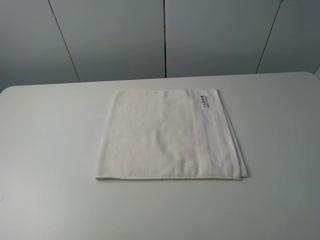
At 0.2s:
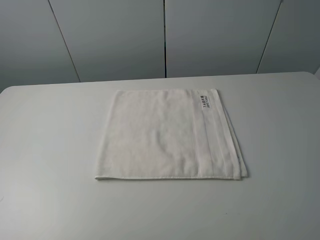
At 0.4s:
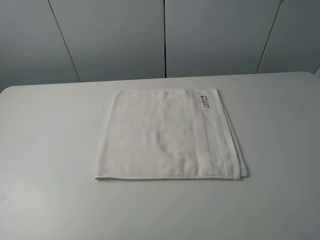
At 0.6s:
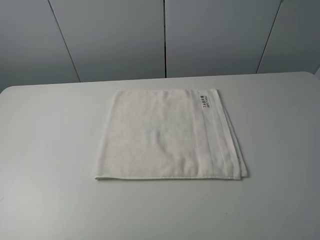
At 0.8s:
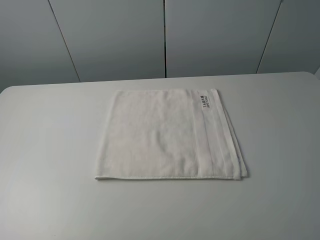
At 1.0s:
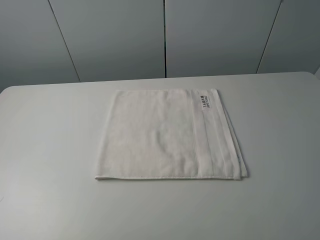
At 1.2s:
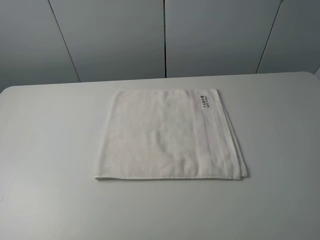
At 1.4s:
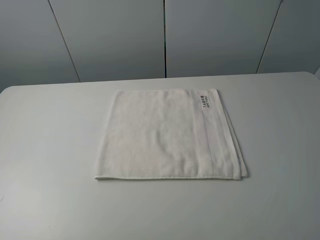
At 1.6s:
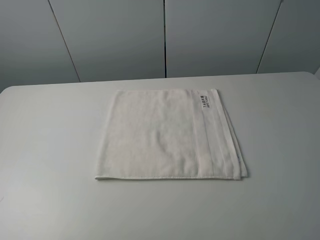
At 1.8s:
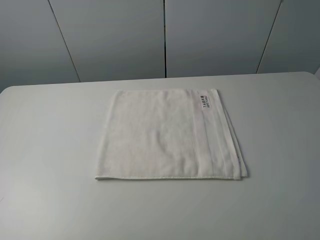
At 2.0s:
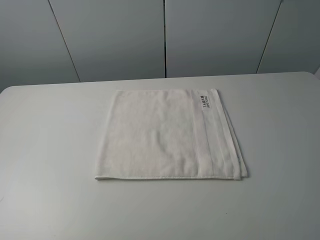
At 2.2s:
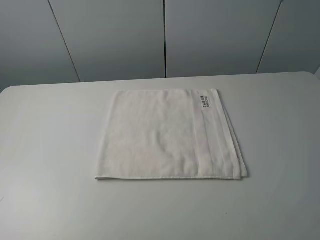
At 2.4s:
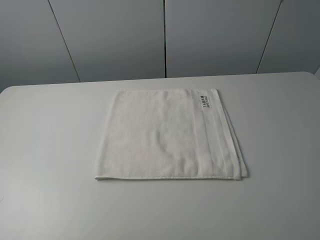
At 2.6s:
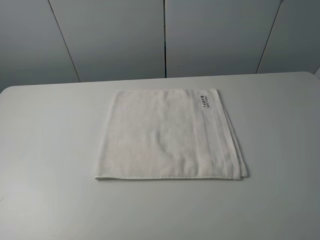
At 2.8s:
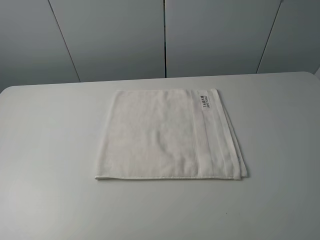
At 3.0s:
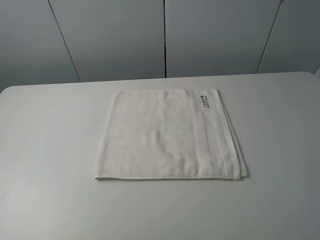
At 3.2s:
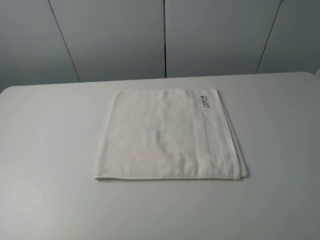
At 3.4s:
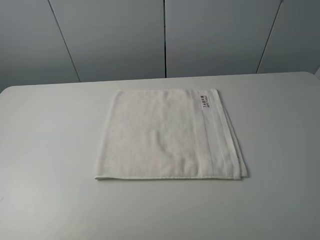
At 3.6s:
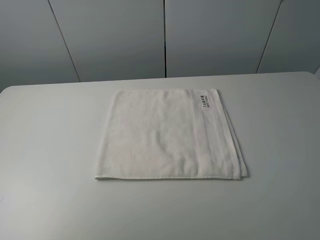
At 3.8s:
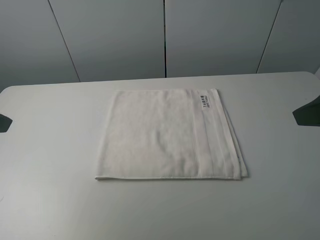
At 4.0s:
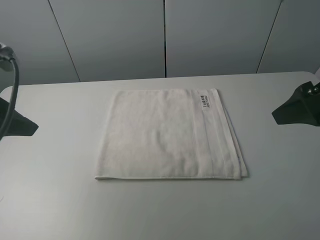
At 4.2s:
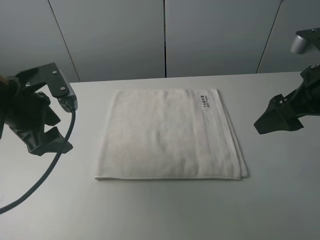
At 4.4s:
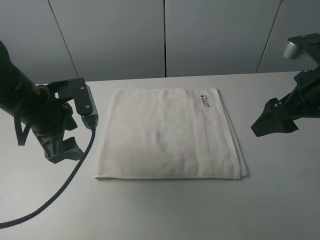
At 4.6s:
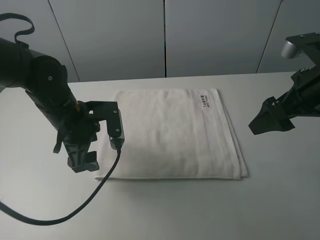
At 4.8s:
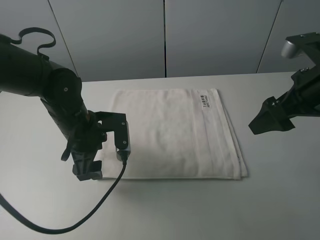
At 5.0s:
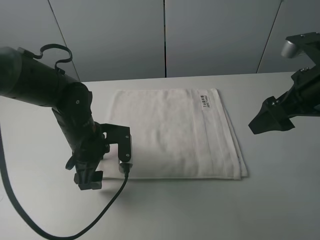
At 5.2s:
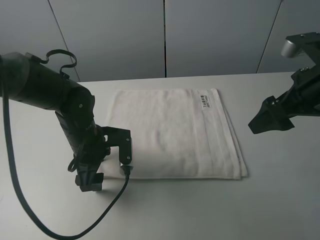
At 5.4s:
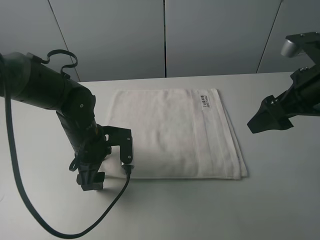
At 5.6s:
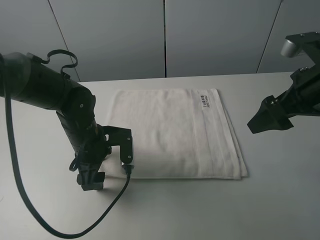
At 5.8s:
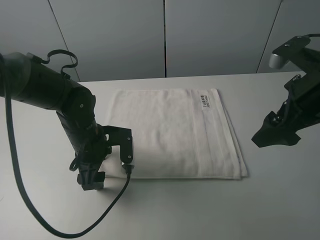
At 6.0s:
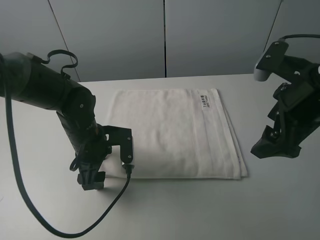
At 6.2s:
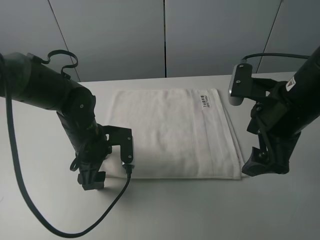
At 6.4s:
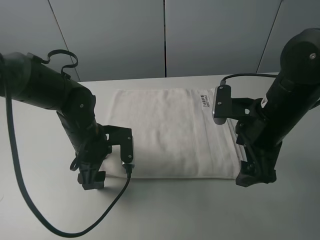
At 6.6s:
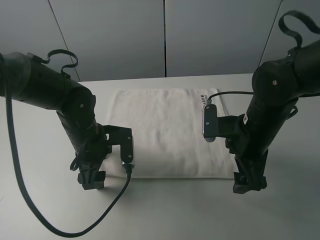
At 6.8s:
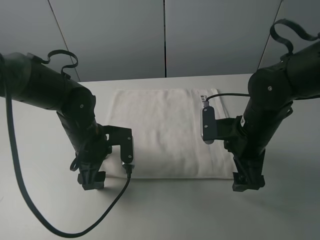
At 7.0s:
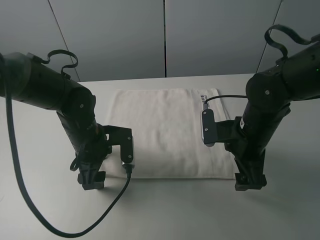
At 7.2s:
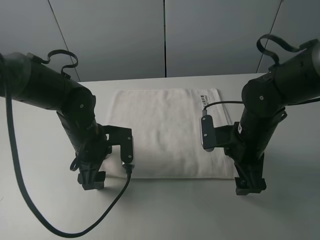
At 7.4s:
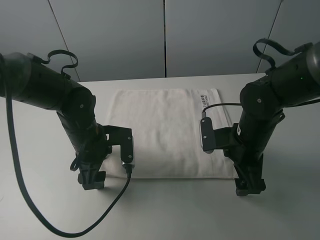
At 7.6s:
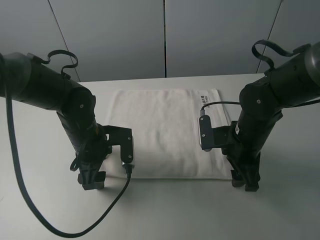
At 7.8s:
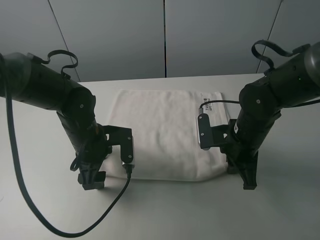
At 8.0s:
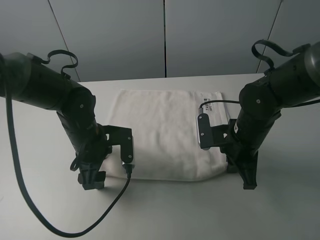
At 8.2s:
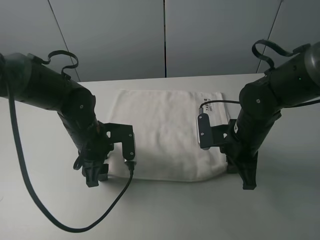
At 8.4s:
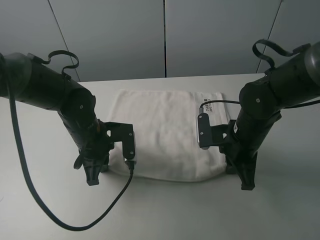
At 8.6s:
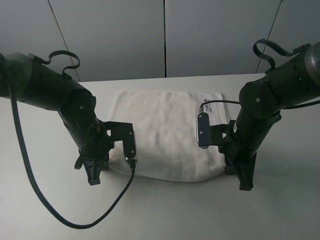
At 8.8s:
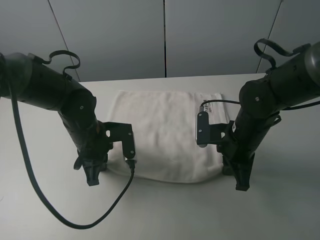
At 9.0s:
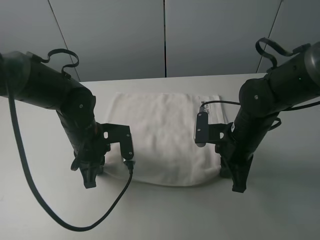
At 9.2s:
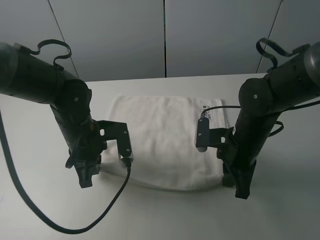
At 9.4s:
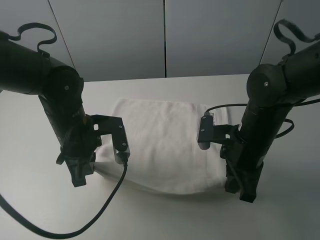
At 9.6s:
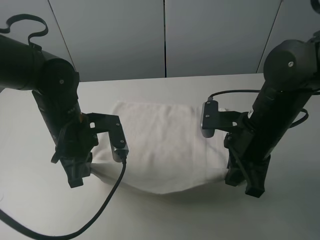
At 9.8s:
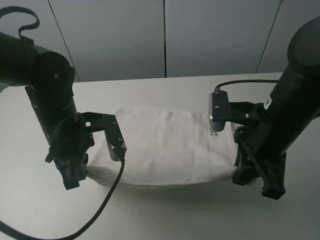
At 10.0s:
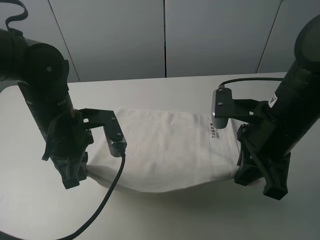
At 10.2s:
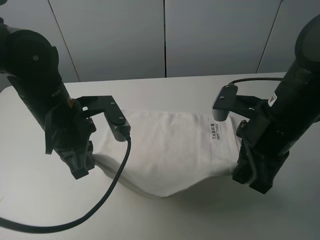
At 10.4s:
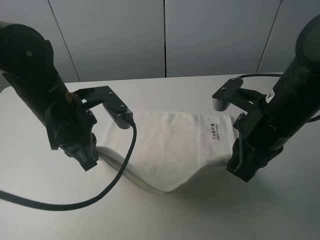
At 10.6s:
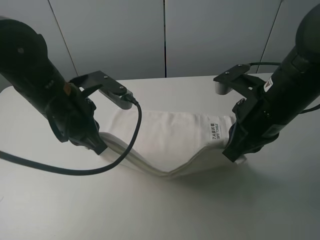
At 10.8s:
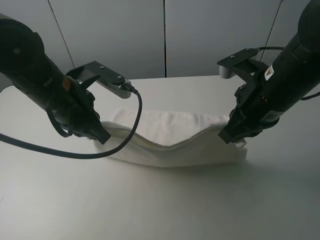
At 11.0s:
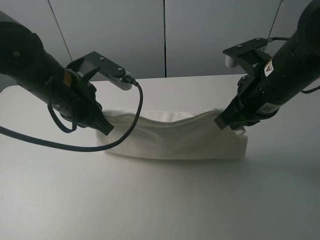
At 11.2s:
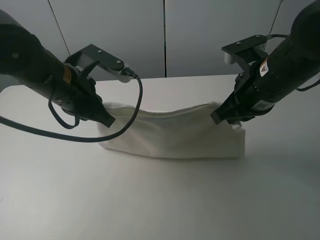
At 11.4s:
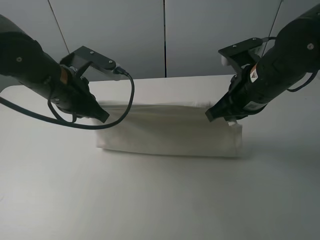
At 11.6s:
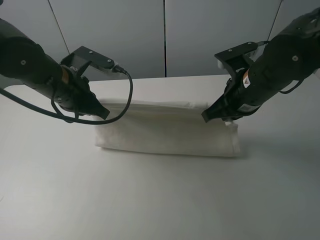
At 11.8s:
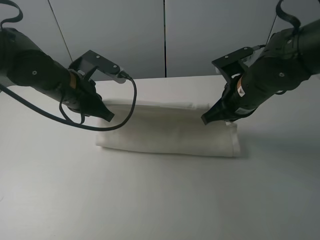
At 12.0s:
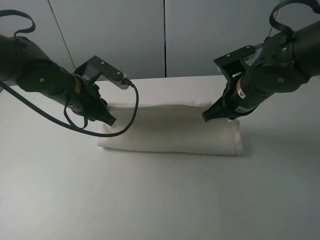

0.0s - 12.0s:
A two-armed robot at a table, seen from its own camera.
Task of the whole recording: fold the towels on the table.
Step, 0.0s - 8.0s: Grasp the white towel with the right gripper.
Step, 8.2s - 8.4s: Grasp the white towel with the left gripper.
0.0s - 3.0s: Neither gripper changes place.
3.0s - 4.4s: The right gripper travels forward by approximately 25 cm; the left gripper heads forward, to the right and downward, covering about 30 cm.
4.4s - 6.0s: The left gripper heads downward, covering roughly 10 cm.
6.0s - 7.6s: The right gripper moves downward, roughly 15 cm, and closes its fingers.
7.6s - 9.0s: The right gripper closes; the left gripper closes its fingers.
9.0s - 10.4s: The two grippers go about 10 cm upward.
10.4s - 12.0s: The two grippers go some 10 cm forward. The left gripper opens its fingers.

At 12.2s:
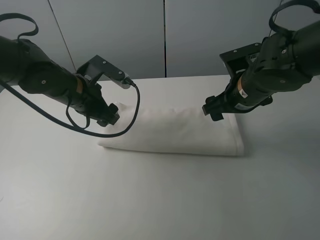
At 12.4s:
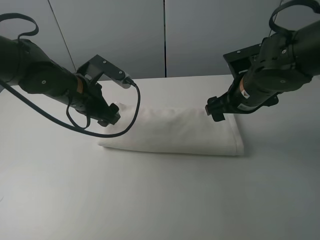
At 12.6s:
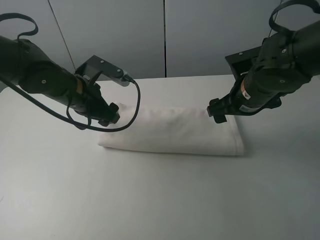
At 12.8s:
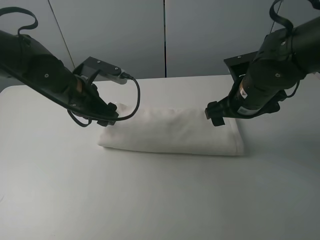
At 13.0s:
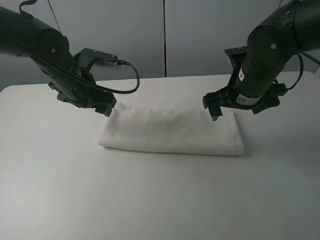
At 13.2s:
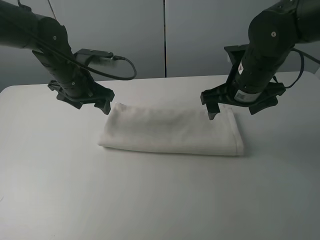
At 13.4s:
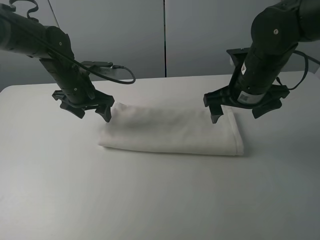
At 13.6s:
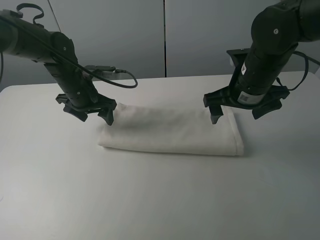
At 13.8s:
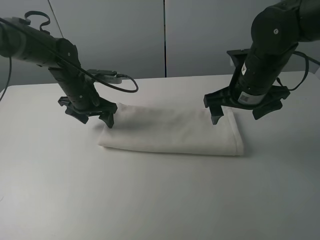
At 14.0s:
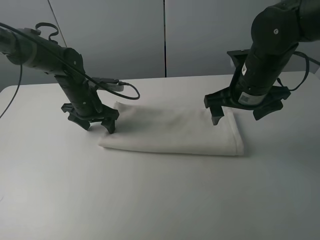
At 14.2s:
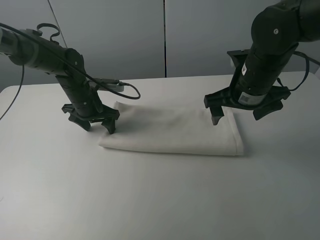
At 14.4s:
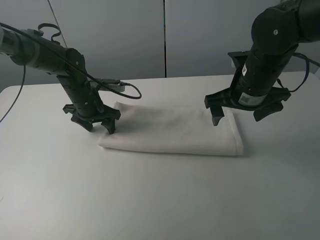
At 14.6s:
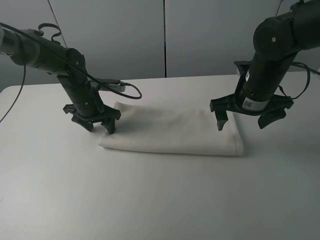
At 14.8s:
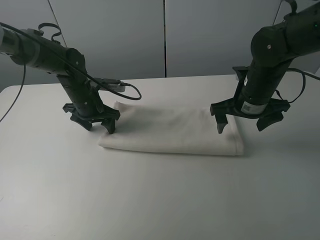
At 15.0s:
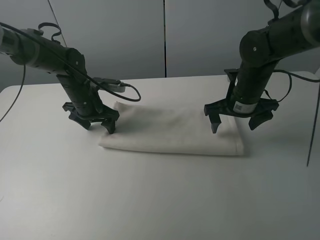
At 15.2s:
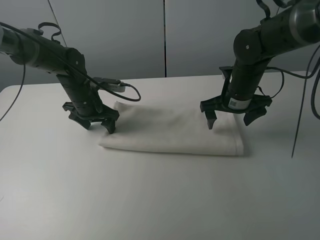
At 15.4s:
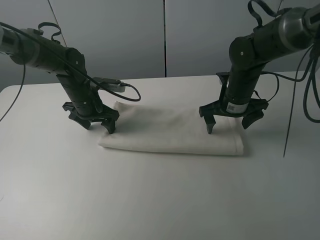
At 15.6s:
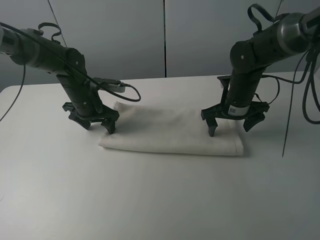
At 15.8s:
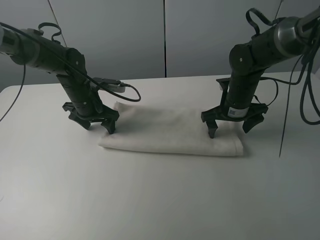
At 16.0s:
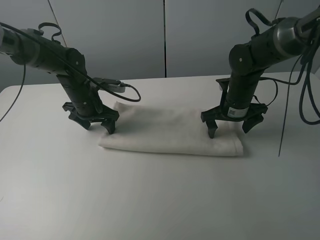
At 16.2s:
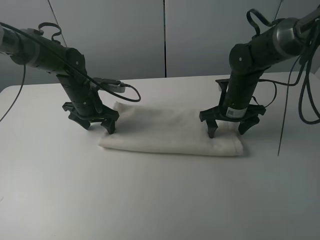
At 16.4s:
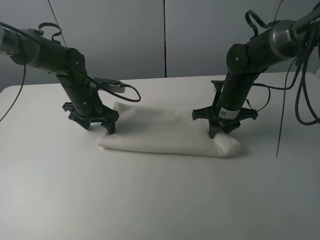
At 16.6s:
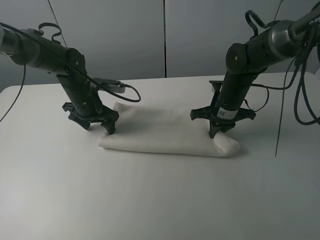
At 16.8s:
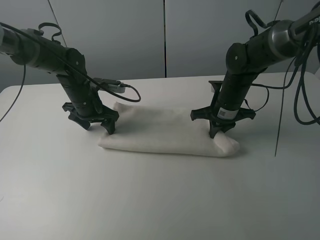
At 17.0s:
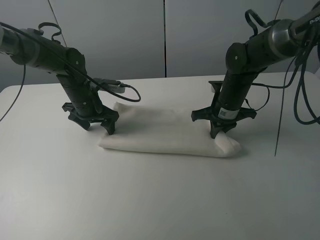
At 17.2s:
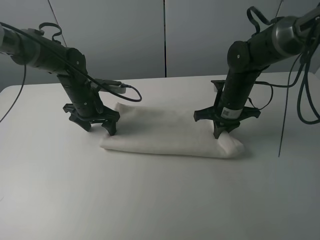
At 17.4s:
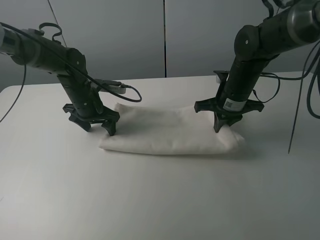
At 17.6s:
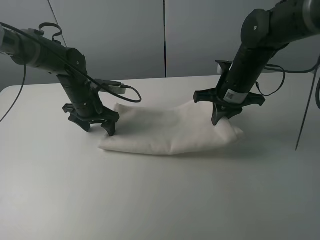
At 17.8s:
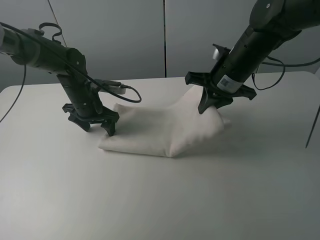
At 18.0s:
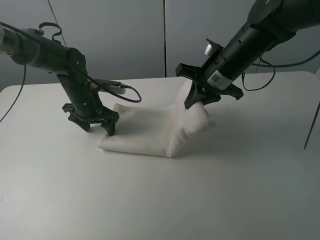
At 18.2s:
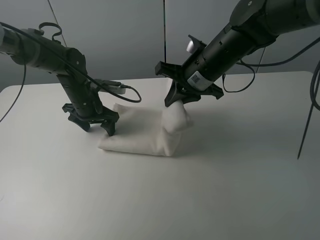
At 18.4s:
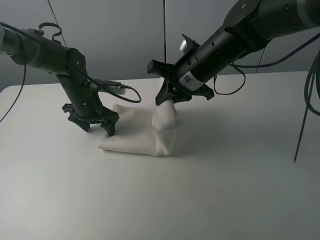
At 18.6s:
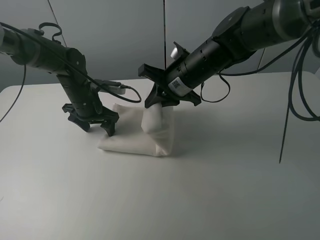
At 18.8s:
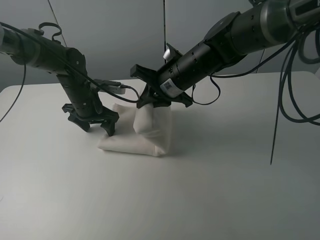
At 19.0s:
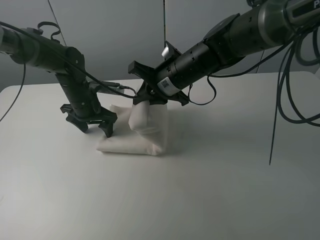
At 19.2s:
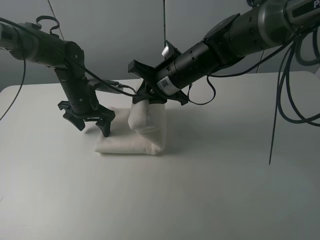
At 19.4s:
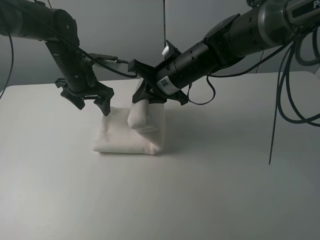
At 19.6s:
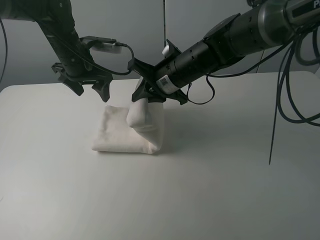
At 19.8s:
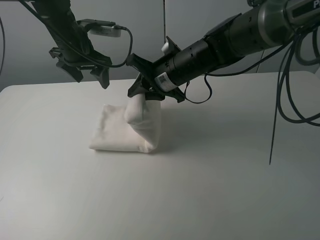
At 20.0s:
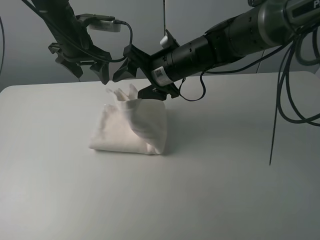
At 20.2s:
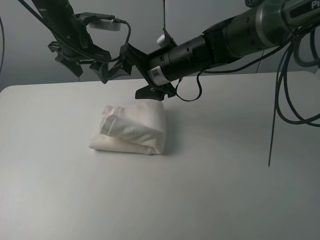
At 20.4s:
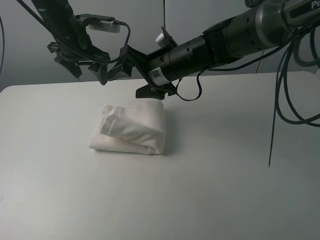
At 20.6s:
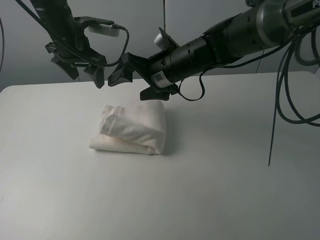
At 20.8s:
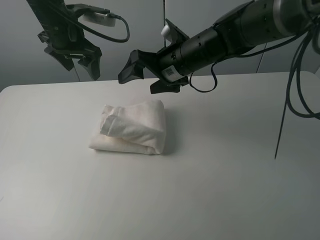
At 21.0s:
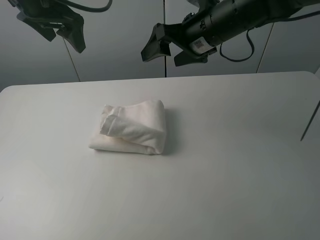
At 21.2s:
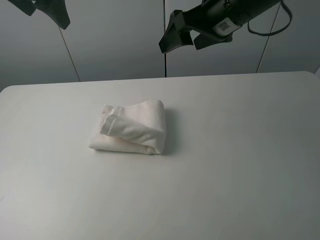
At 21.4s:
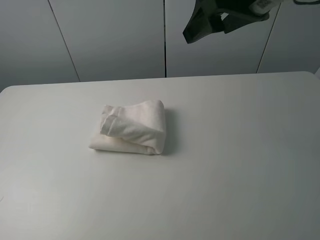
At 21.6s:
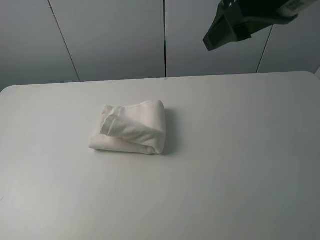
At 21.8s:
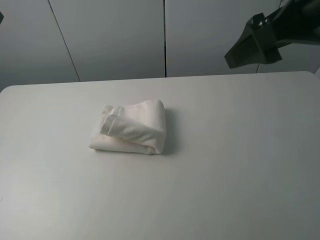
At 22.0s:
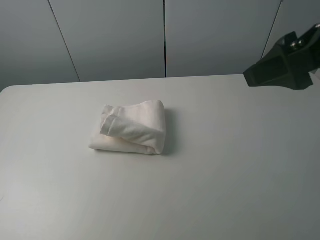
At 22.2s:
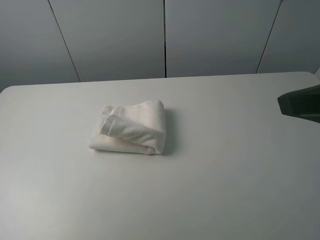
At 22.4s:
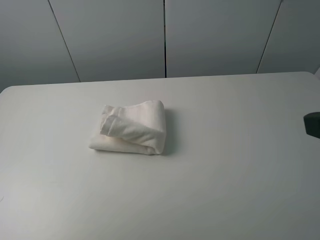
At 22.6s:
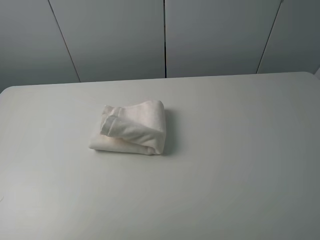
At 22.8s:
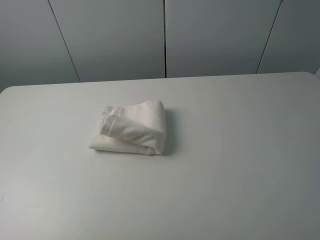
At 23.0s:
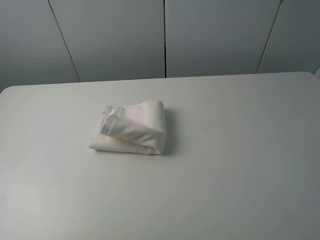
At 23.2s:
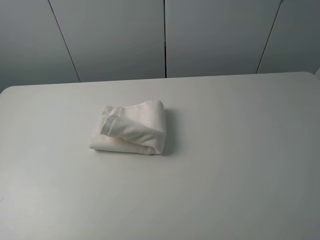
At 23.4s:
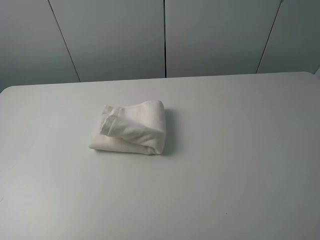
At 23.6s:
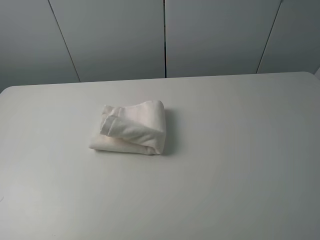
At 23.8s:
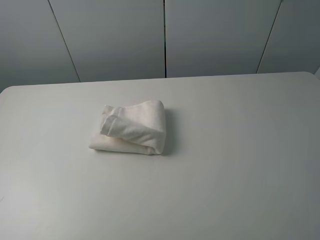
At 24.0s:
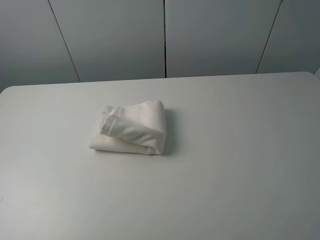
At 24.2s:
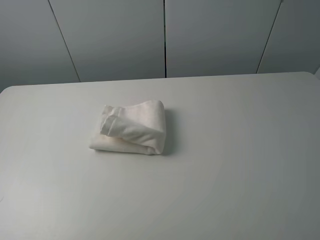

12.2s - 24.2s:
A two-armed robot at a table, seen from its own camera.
Task of the whole recording: fold the towels on the table.
Step, 12.6s - 14.0s: Press on the white towel with the left gripper.
Step, 14.2s - 20.2s: Fold the white towel from right to left with right gripper.
12.2s - 13.8s: The left gripper goes some 5 cm forward.
13.8s - 15.2s: The right gripper goes roughly 10 cm downward and forward.
15.2s - 16.6s: The right gripper closes up.
16.6s - 18.2s: The right gripper shifts about 15 cm upward and to the left.
18.2s - 19.8s: The right gripper shifts by about 5 cm. The left gripper heads upward, covering some 15 cm.
19.8s - 21.2s: The right gripper heads upward and to the right, covering approximately 15 cm, and opens; the left gripper travels upward and backward by about 20 cm.
21.2s - 22.6s: The left gripper travels backward by approximately 30 cm, while the right gripper shifts approximately 35 cm backward and to the right.
